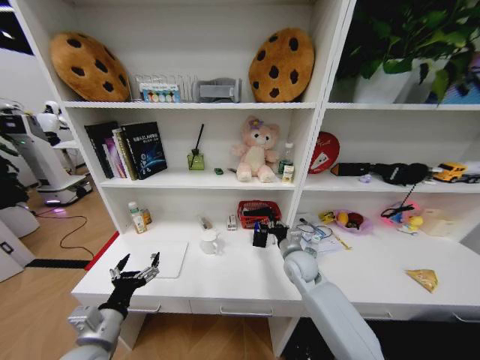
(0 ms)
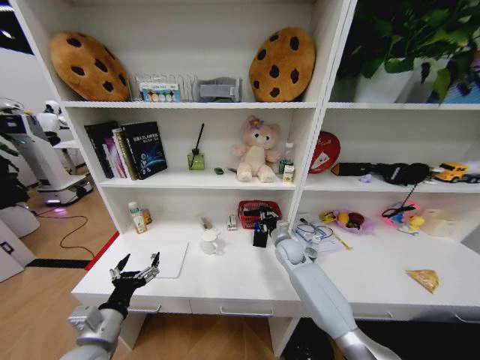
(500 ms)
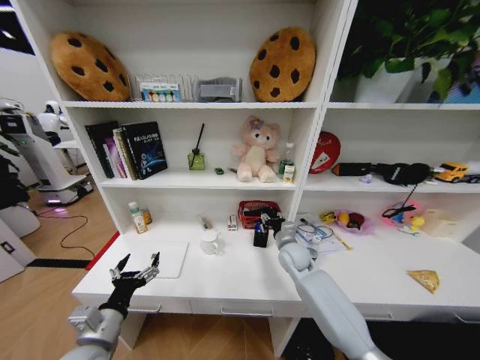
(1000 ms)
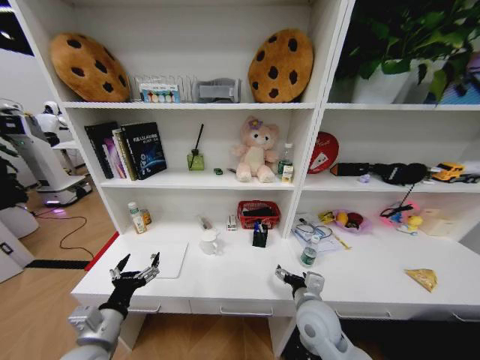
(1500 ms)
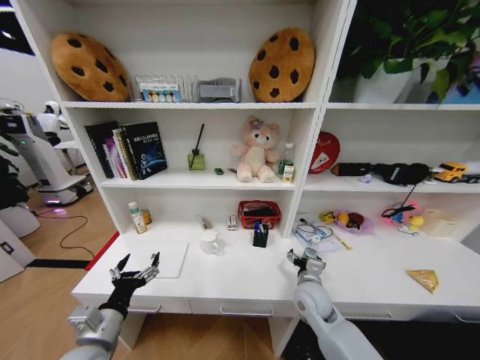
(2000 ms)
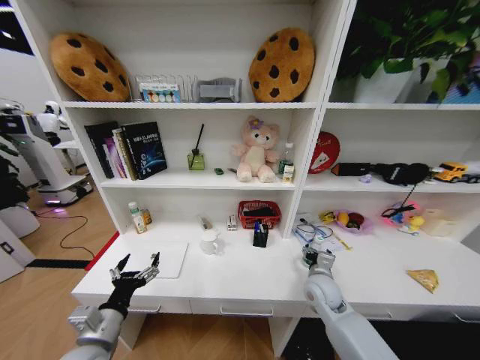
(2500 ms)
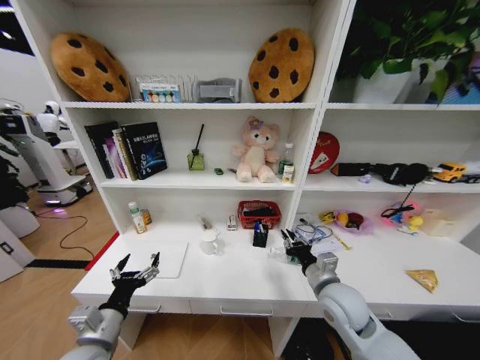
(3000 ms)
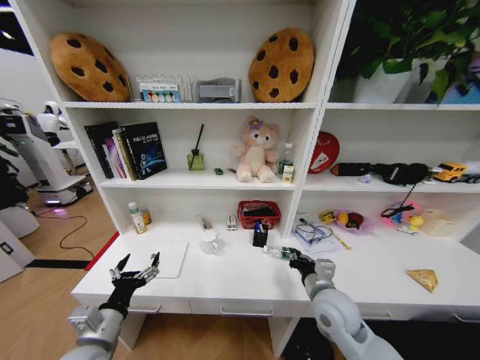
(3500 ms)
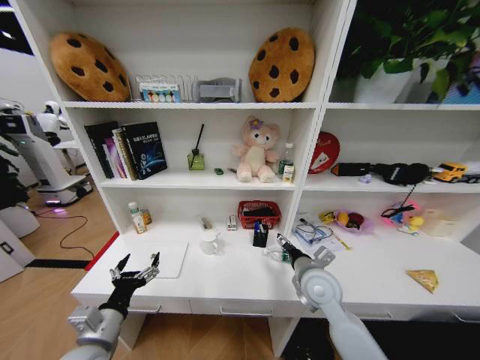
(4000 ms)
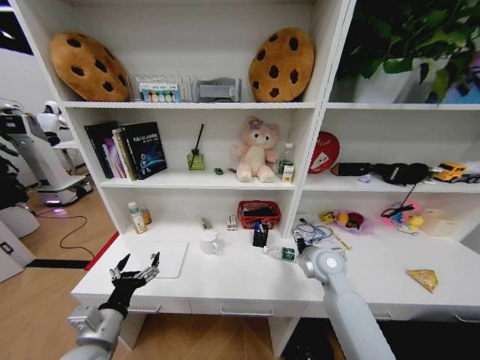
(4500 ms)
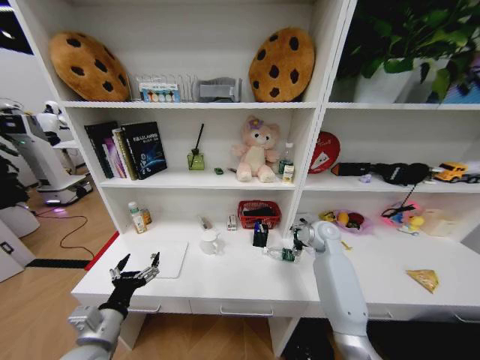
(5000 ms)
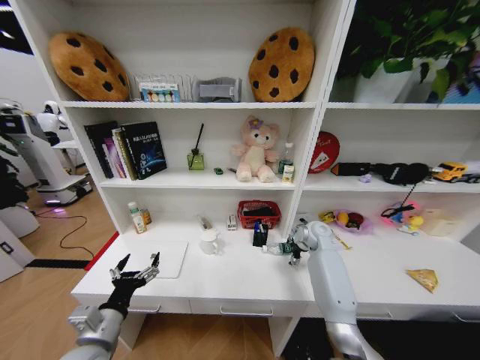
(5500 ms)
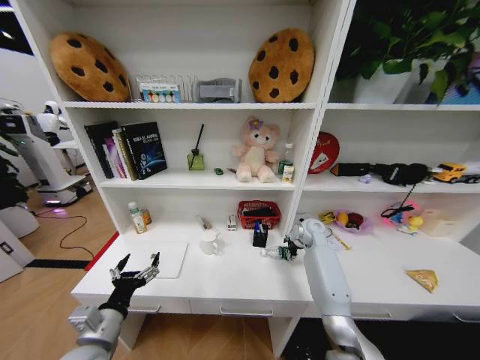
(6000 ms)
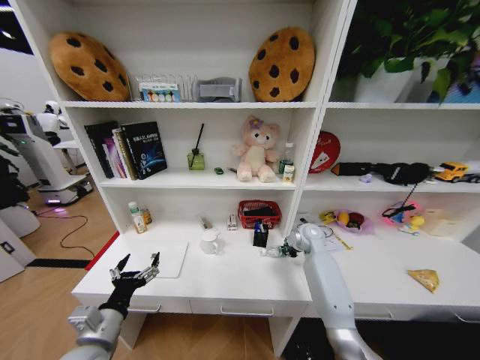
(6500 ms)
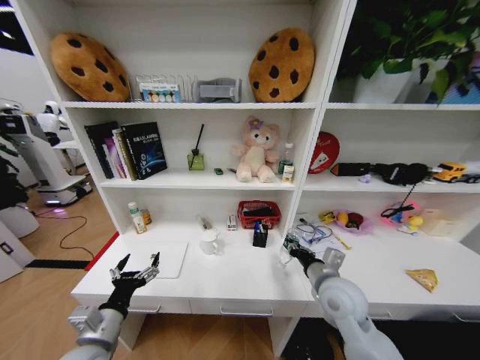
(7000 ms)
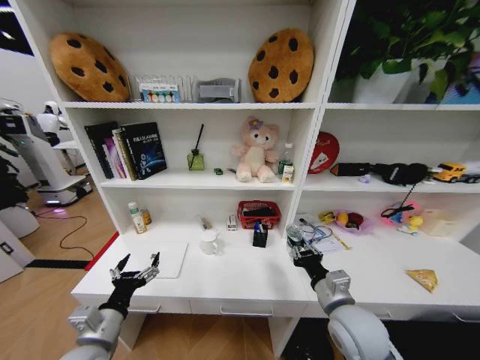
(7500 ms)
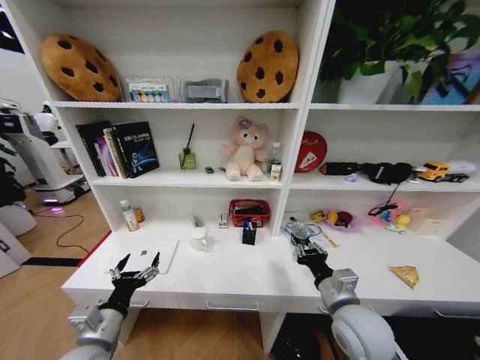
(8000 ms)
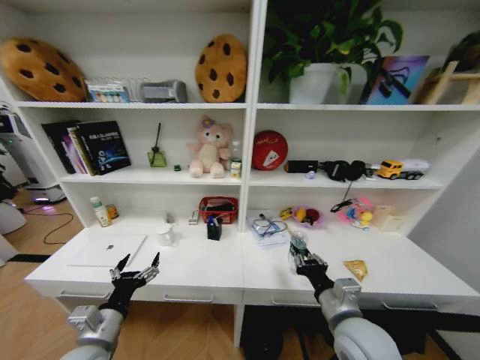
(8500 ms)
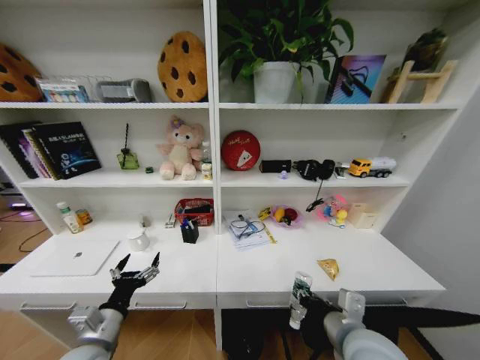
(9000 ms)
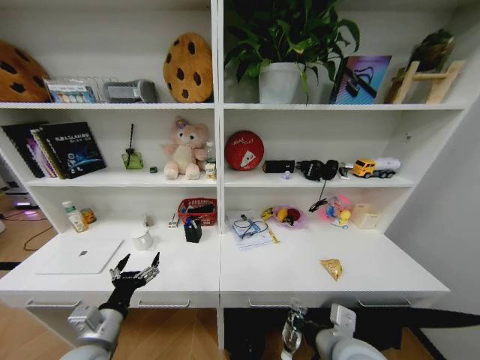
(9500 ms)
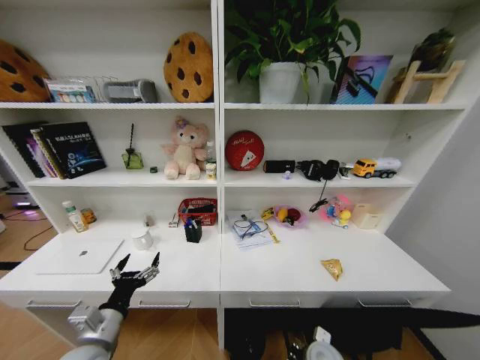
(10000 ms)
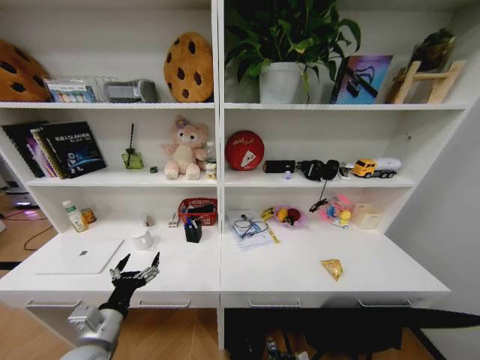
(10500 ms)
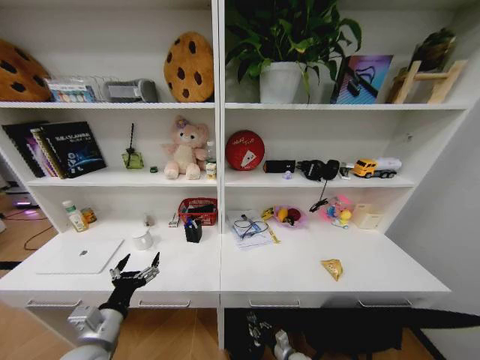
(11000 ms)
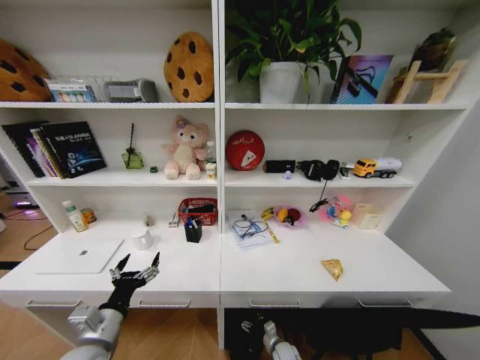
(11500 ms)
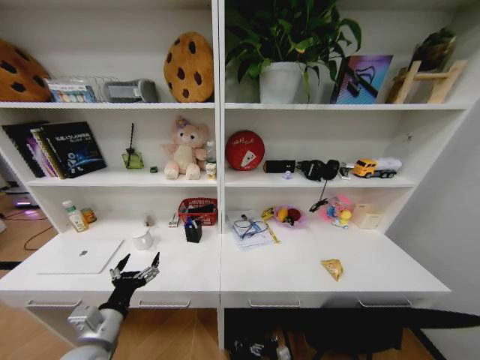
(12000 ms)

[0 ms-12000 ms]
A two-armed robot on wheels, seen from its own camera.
Task of the whole recording: Organize the objects on the table.
0 ms to 2000 ms: The right gripper goes forward and backward, roughly 20 cm each way, reversing 2 times, and opens its fingers.
2000 ms to 4000 ms: The right gripper travels upward by roughly 5 cm, and closes.
4000 ms to 6000 ms: The right gripper shifts approximately 20 cm forward.
6000 ms to 8000 ms: The right gripper shifts roughly 30 cm backward, and closes its fingers.
8000 ms to 10000 ms: The right gripper shifts roughly 20 cm downward.
10000 ms to 12000 ms: The right gripper is displaced downward by approximately 25 cm, and opens up.

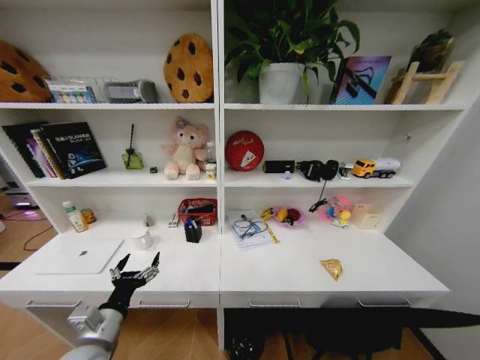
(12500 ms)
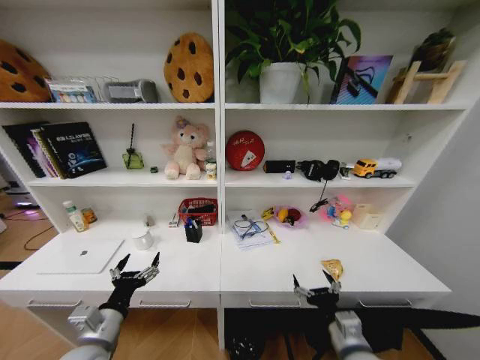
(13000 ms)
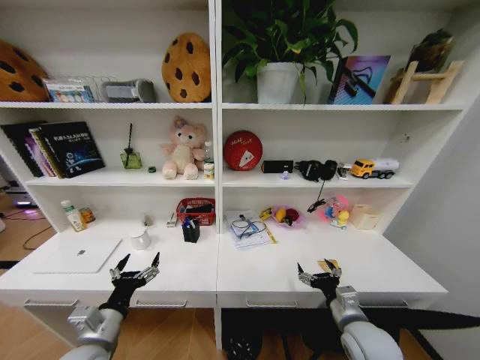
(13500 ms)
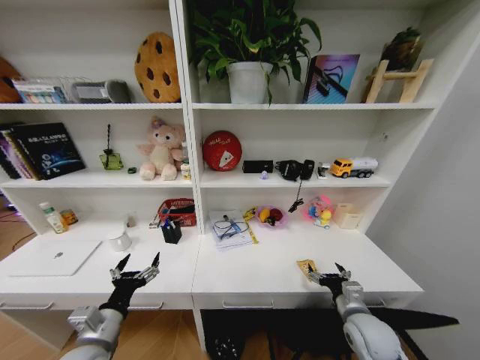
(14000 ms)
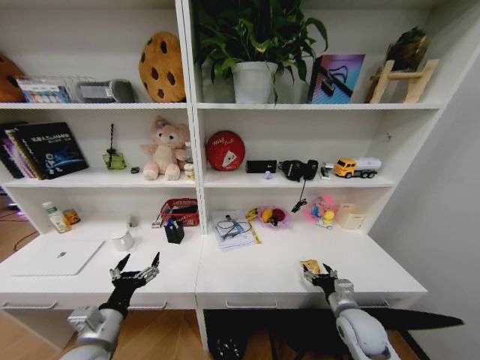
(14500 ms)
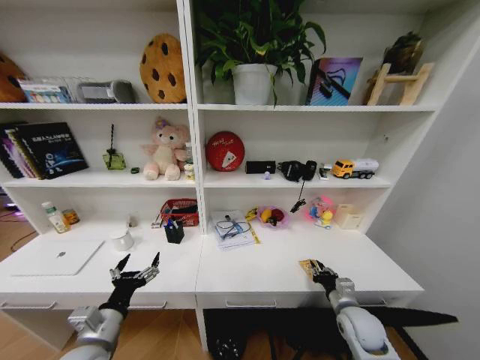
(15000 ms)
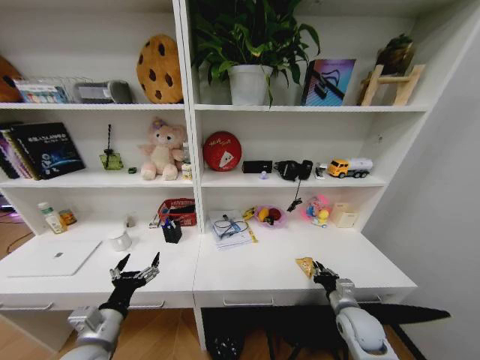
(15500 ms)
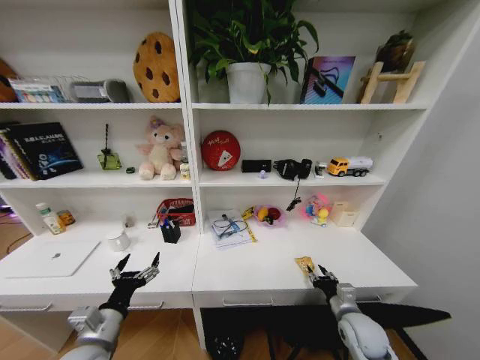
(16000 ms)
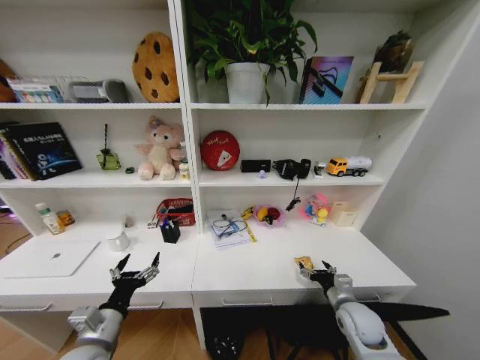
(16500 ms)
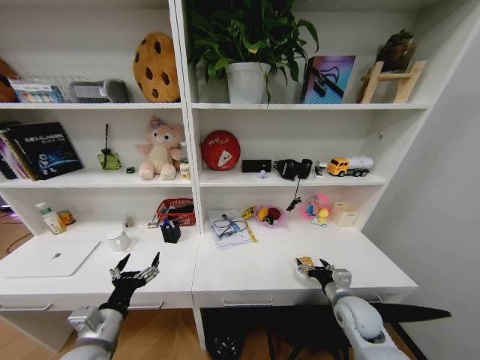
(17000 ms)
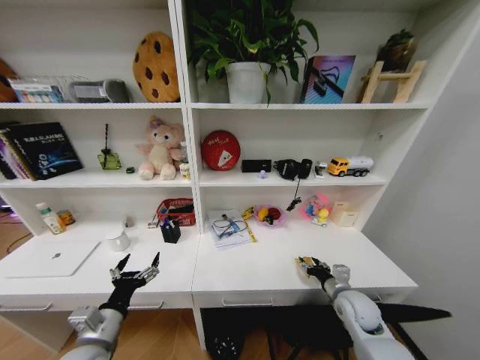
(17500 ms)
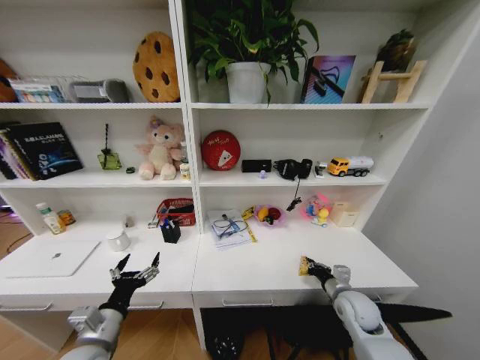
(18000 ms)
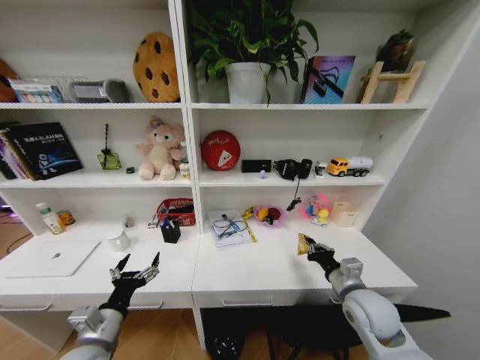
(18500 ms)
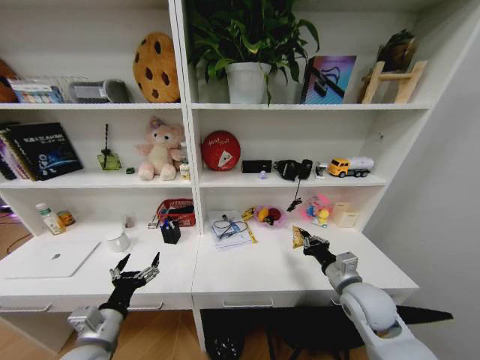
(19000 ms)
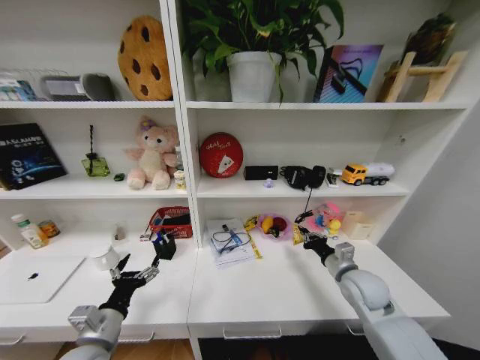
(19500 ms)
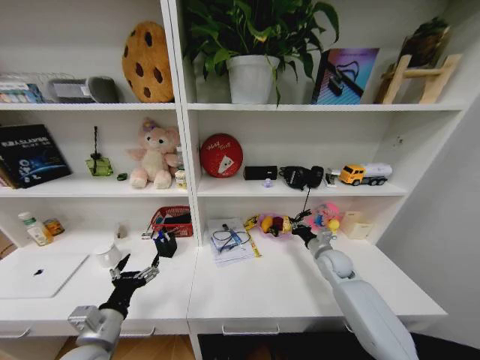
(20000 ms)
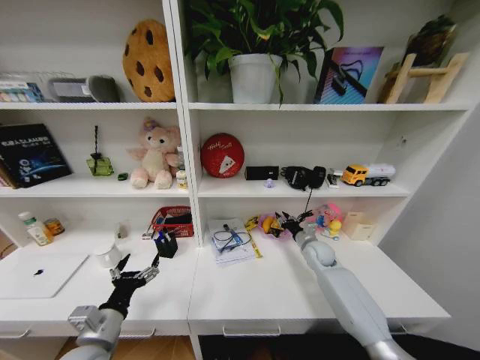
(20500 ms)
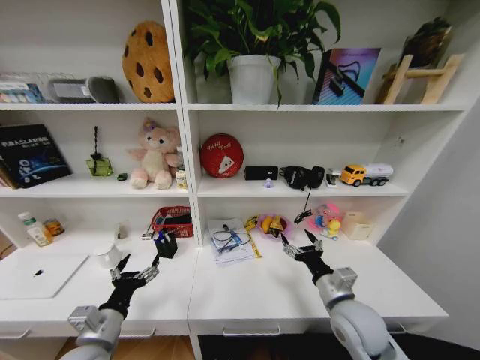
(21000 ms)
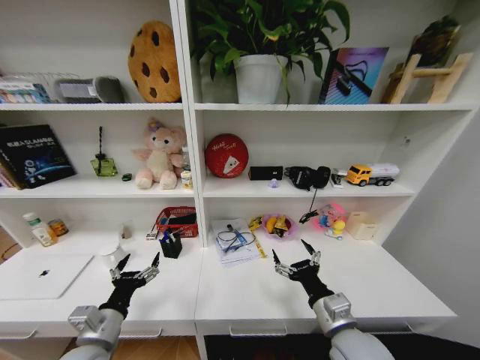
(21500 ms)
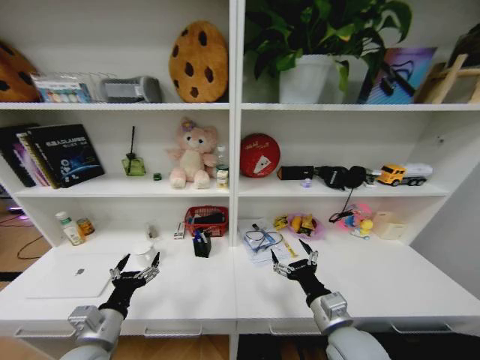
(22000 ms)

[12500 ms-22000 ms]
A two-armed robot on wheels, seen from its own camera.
Task of the whole recording: Organize the objects on the table.
12500 ms to 14500 ms: The right gripper travels forward and upward by about 30 cm.
14500 ms to 16500 ms: The right gripper closes and opens again.
16500 ms to 18000 ms: The right gripper closes up.
18000 ms to 20000 ms: The right gripper goes approximately 10 cm forward.
20000 ms to 22000 ms: The right gripper goes roughly 25 cm backward and to the left, and opens its fingers.

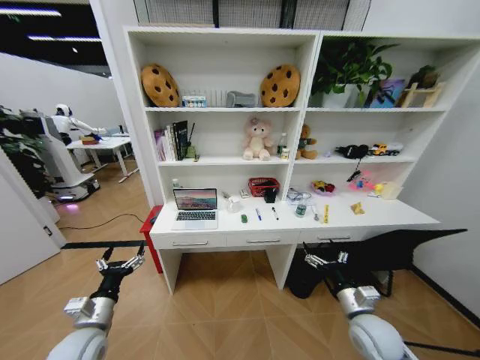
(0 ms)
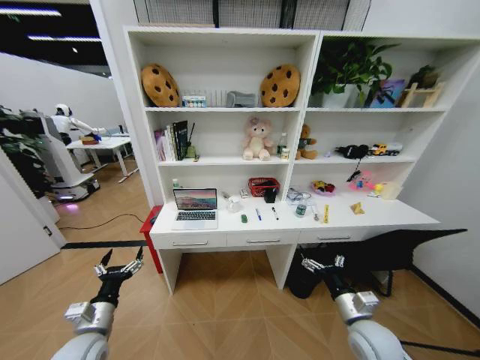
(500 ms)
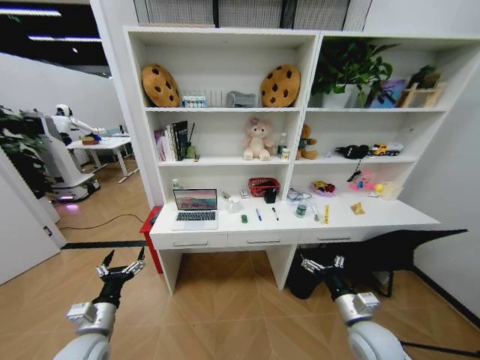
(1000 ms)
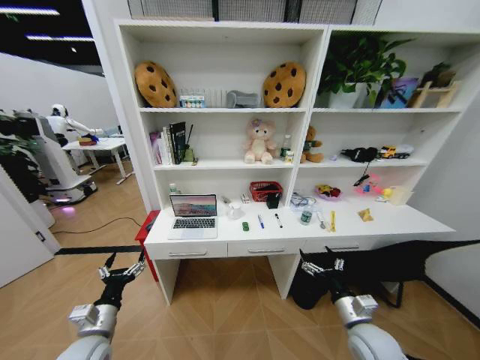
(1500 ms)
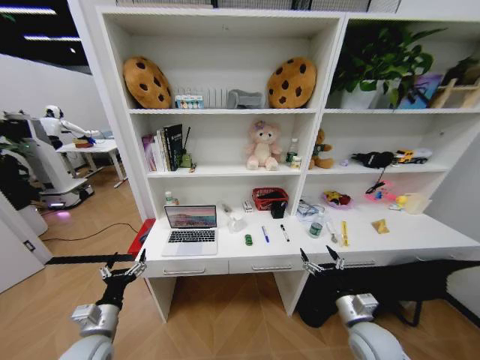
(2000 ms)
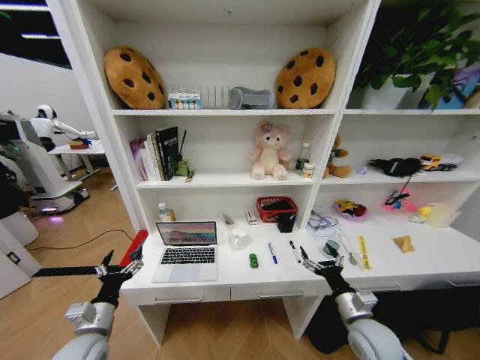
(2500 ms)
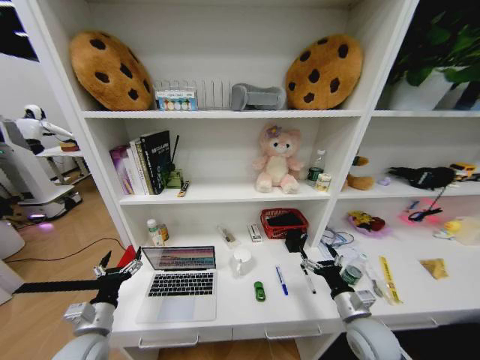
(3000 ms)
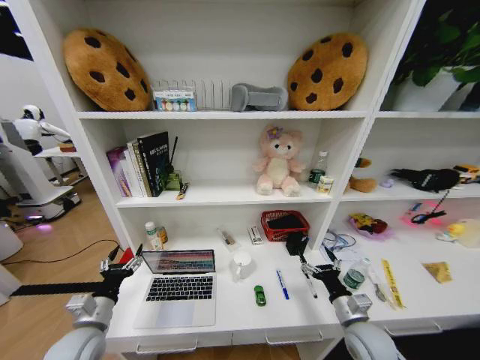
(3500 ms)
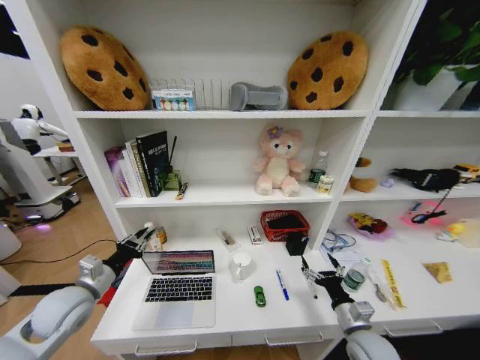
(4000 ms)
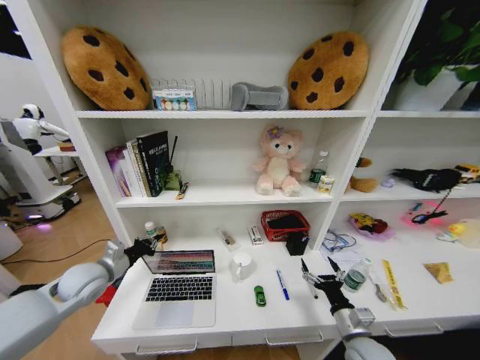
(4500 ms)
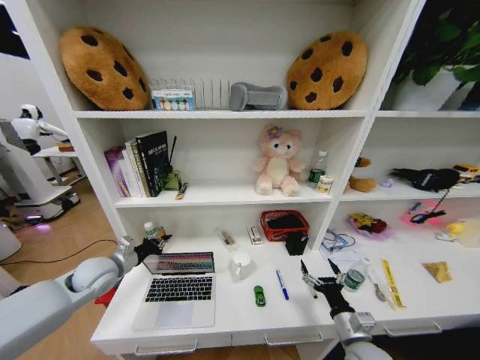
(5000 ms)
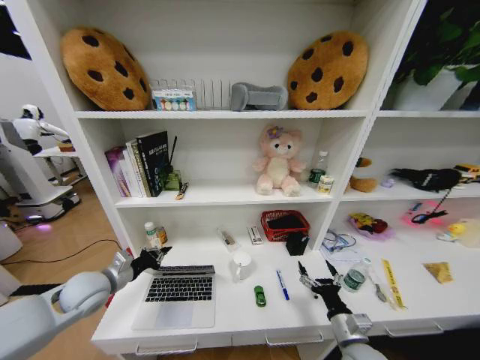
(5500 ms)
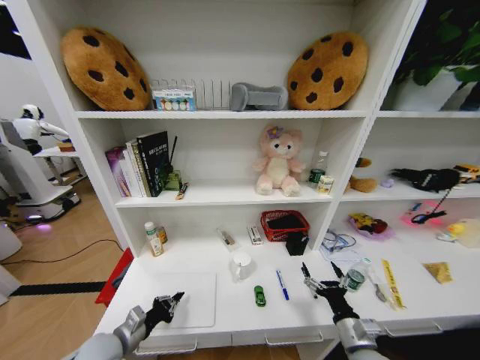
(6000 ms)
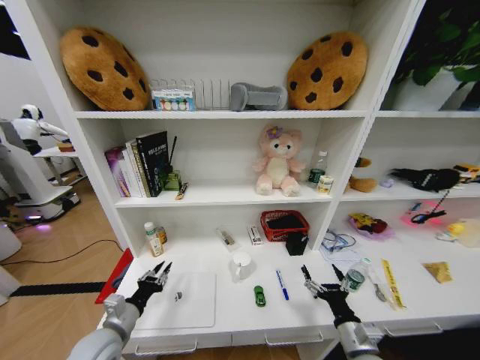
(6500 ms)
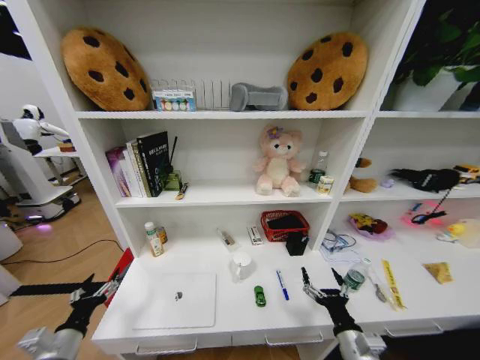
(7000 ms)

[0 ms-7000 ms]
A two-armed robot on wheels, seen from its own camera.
Task of the whole recording: Organize the objects on the table.
3500 ms to 5000 ms: The left gripper moves forward and upward, roughly 15 cm, and closes.
5000 ms to 7000 ms: The left gripper shifts about 20 cm backward and downward, and opens, while the right gripper changes place by some 5 cm.
